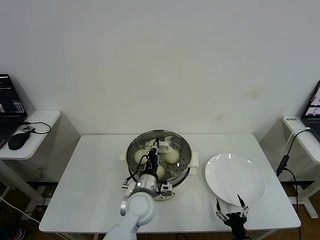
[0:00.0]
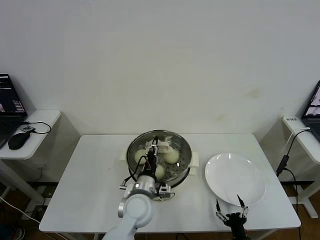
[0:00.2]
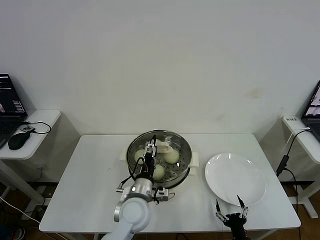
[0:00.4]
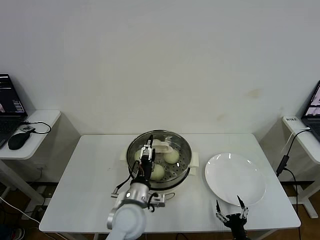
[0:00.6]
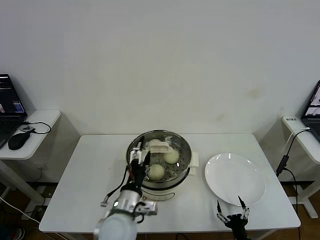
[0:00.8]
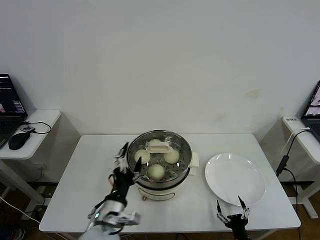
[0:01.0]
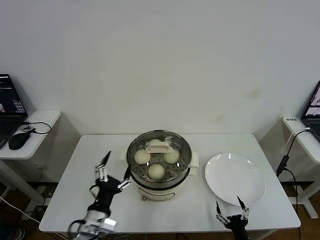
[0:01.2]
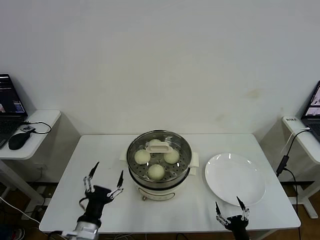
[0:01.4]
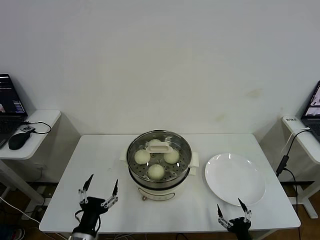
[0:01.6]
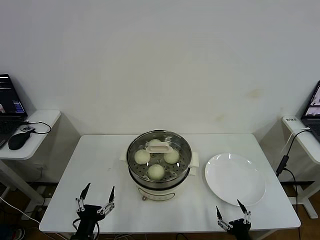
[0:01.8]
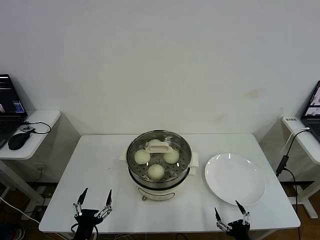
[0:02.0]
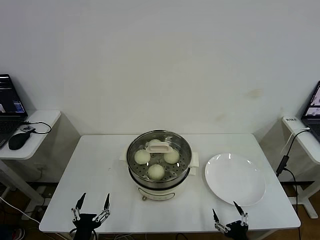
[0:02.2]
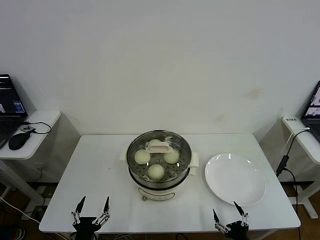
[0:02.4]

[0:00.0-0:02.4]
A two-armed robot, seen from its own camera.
0:00.0 to 0:01.2: The left gripper shifts some 15 cm to the left and backward, and opens up.
0:01.2 to 0:02.4: The left gripper goes approximately 15 cm downward, backward and to the left, while the right gripper changes place by about 5 cm.
